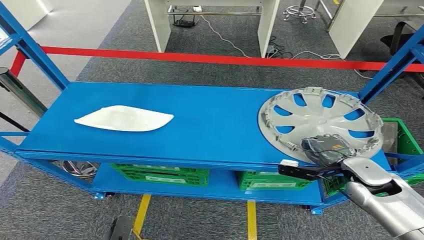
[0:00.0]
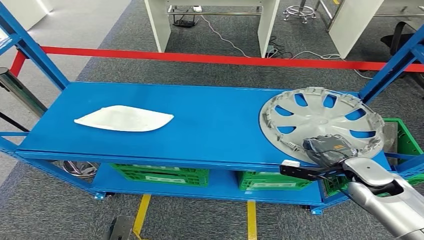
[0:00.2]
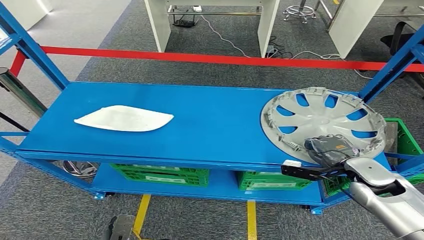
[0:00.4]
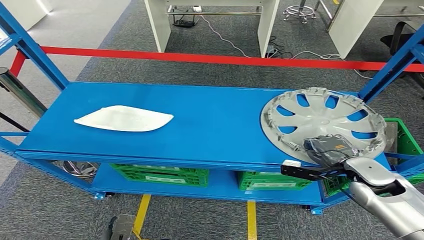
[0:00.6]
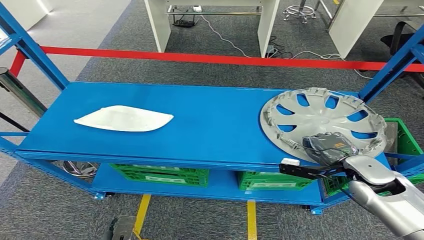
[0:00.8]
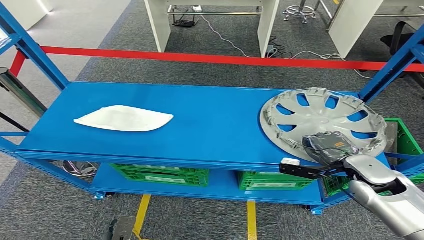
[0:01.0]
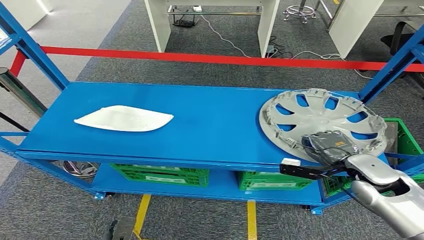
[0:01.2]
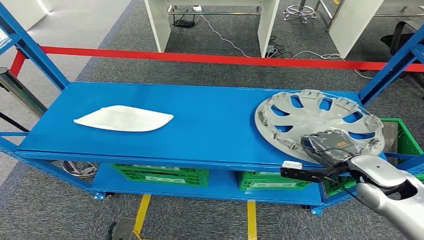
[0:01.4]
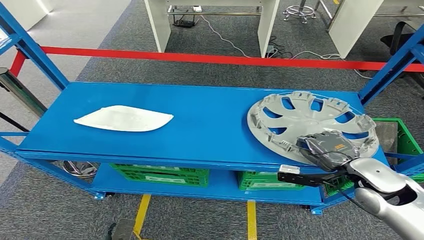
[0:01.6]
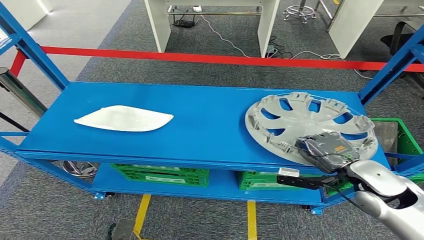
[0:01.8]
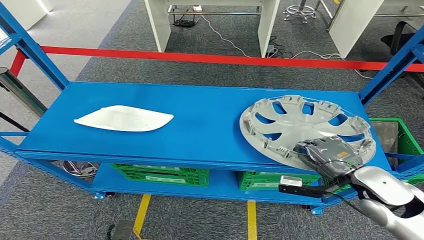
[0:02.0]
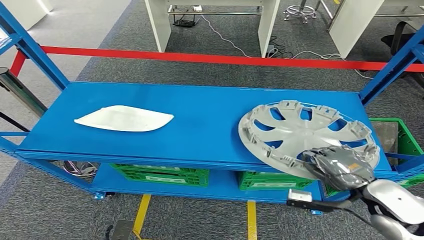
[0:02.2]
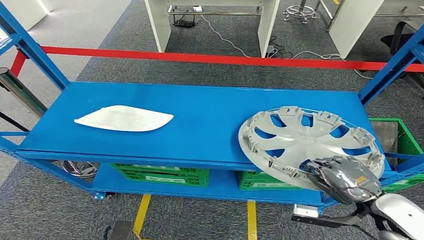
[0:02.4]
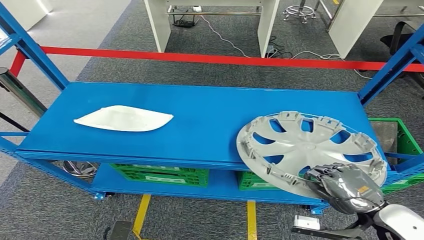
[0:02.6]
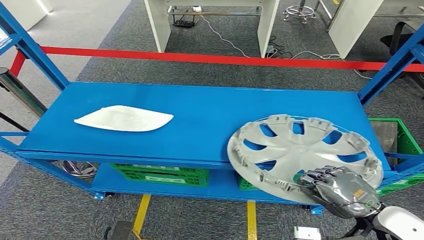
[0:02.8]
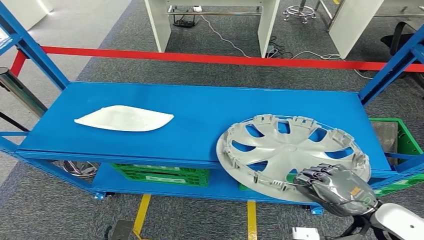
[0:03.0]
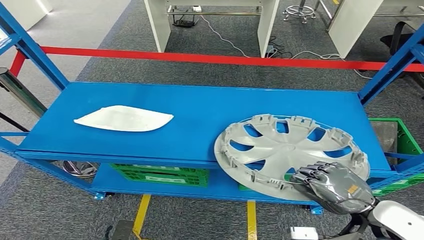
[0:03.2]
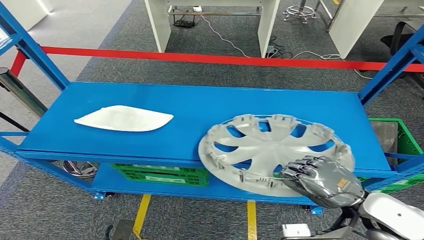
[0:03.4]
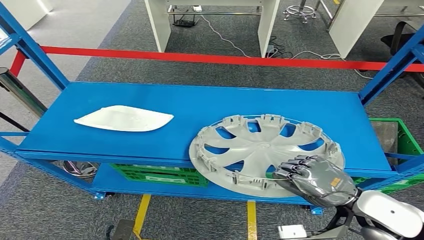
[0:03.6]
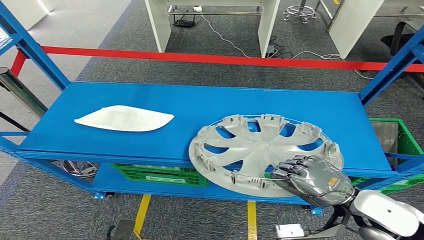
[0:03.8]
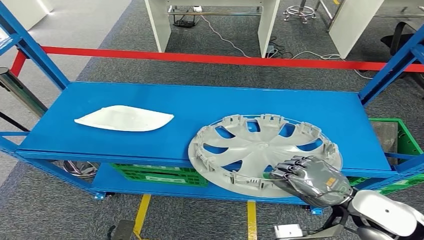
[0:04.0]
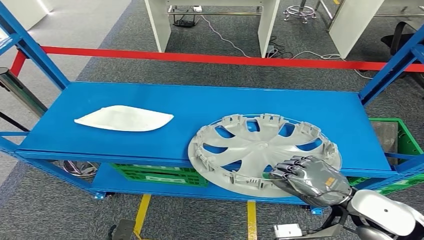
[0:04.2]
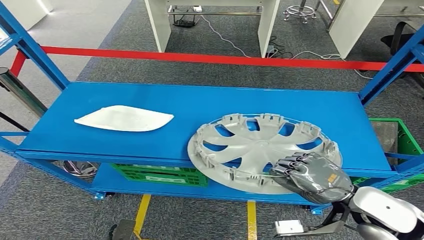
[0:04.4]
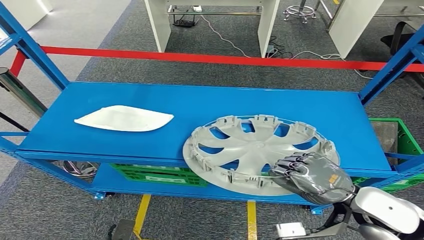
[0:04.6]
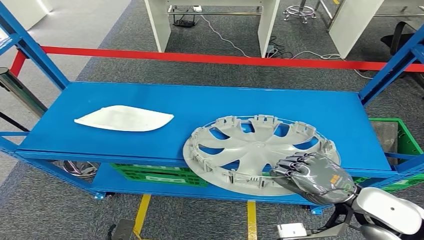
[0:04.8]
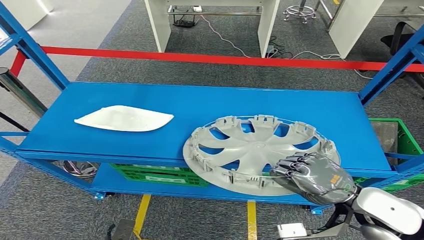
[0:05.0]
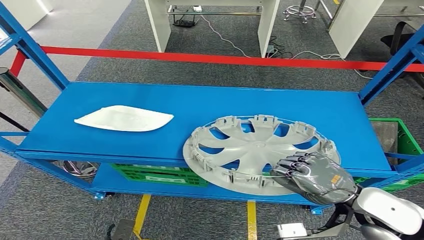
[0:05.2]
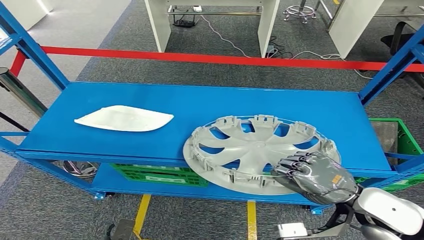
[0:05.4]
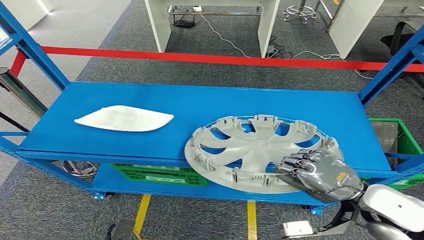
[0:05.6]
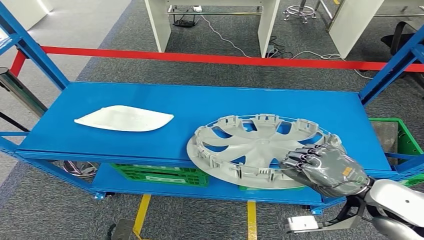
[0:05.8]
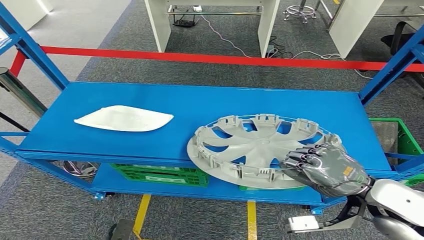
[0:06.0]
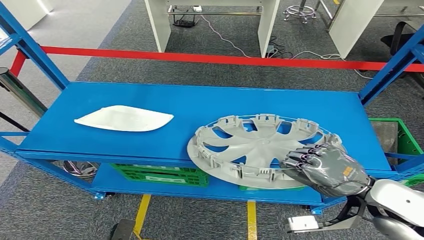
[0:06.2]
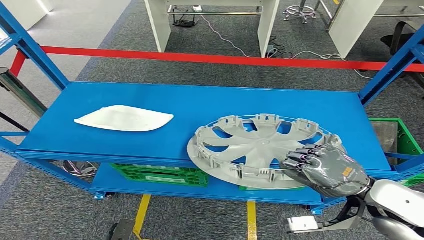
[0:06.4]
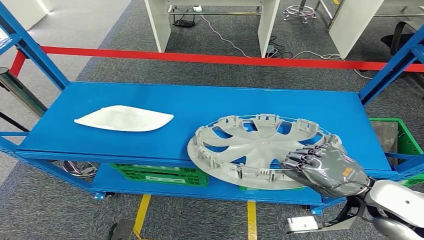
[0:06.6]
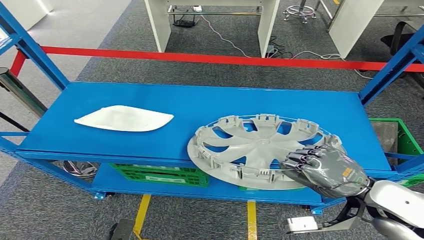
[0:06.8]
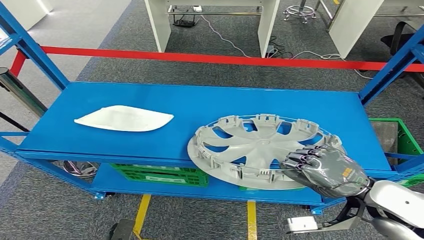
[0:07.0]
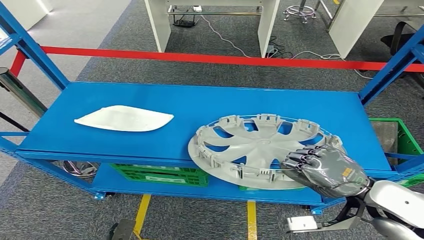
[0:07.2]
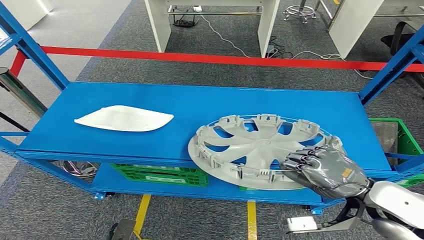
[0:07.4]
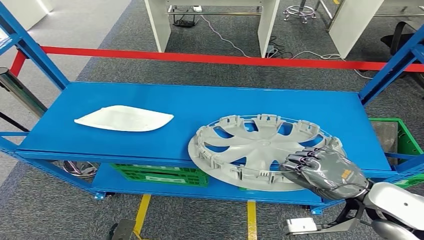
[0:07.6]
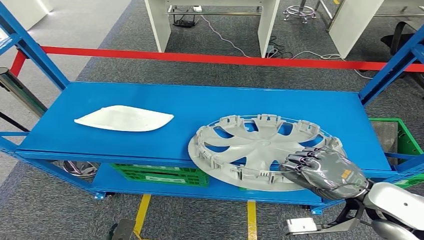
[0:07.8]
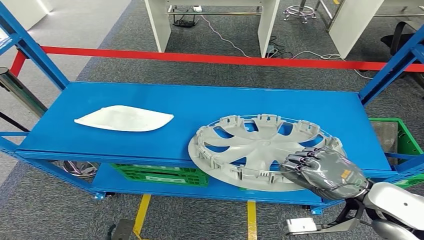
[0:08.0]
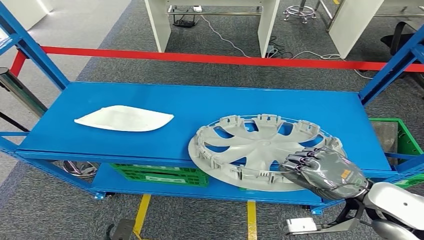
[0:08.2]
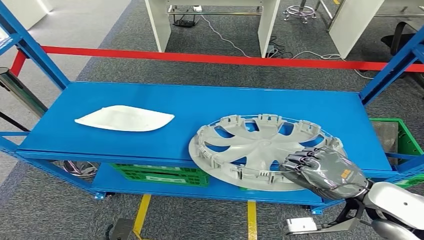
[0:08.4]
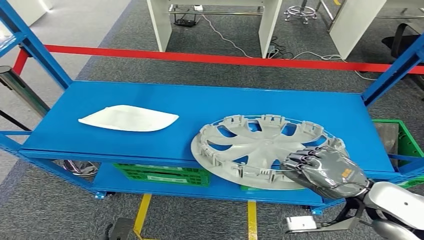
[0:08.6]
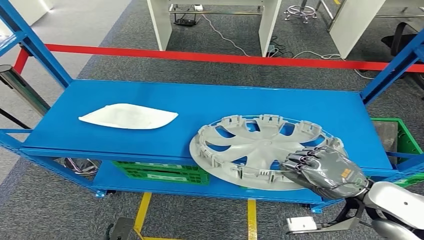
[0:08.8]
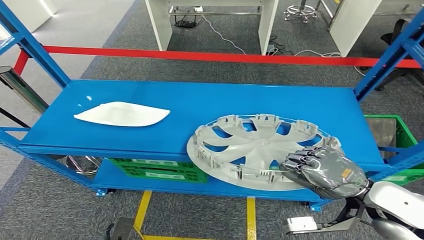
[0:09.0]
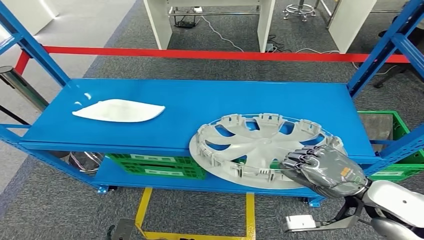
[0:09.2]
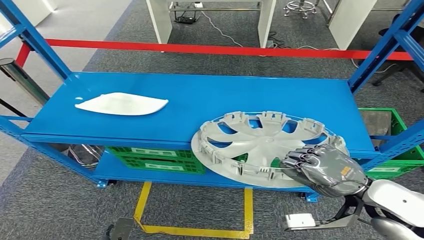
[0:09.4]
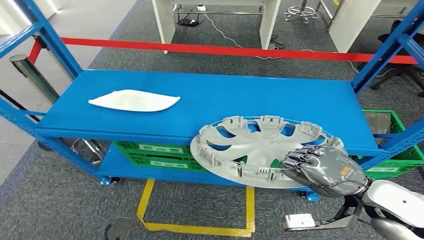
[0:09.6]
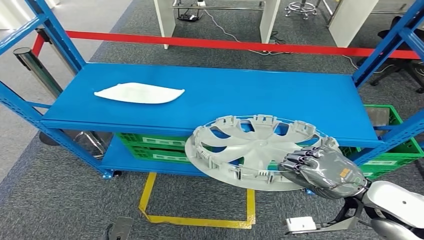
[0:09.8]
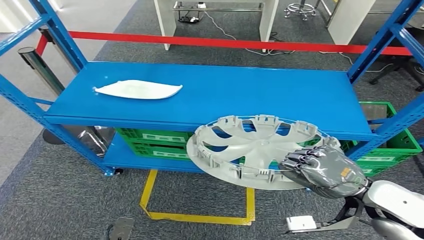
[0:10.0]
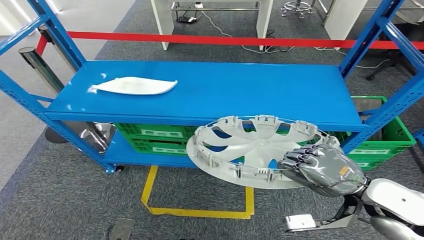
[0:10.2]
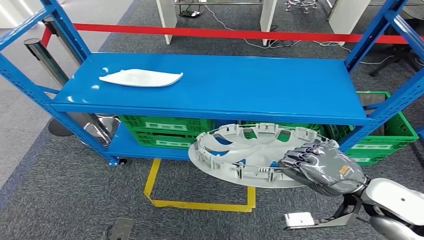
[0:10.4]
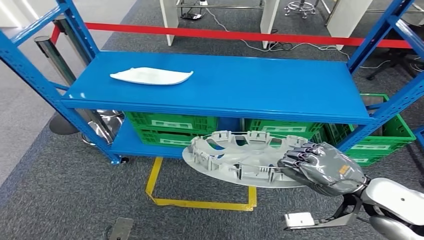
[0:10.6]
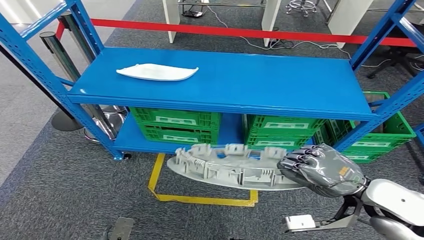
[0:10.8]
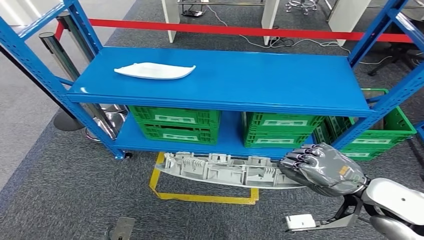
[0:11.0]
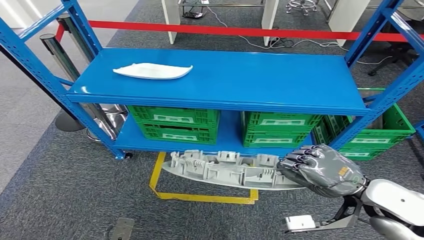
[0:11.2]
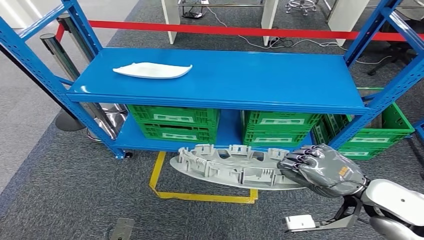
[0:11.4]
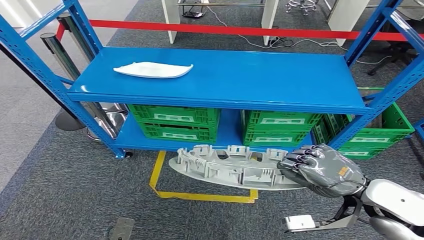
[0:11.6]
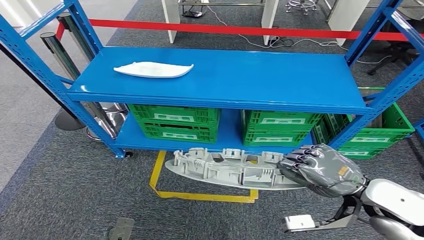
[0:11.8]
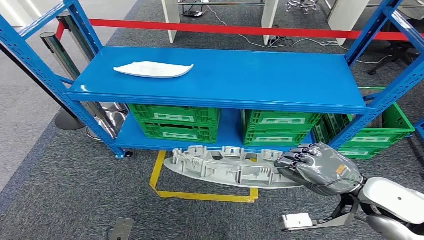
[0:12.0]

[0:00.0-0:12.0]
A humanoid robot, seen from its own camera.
0:01.6 to 0:03.0: The right hand heads backward, covering some 10 cm.
0:03.0 to 0:04.4: The hands make only small movements.
0:04.4 to 0:06.0: The hands make only small movements.
0:06.0 to 0:09.0: The two hands keep their place.

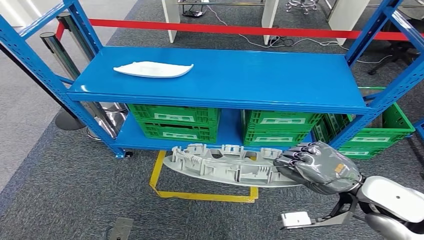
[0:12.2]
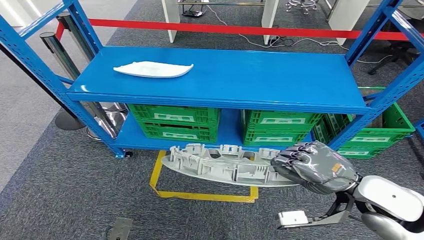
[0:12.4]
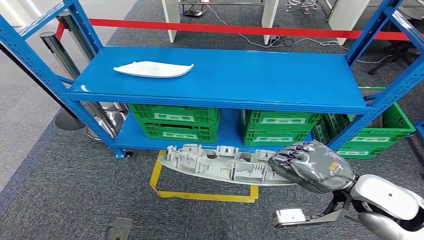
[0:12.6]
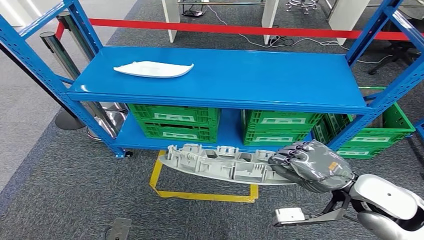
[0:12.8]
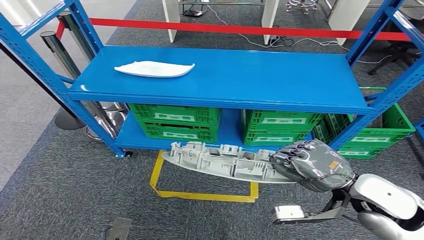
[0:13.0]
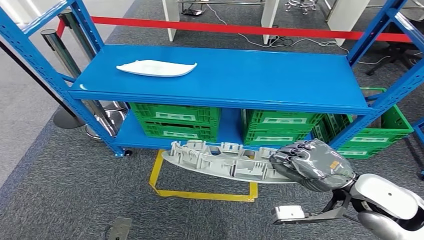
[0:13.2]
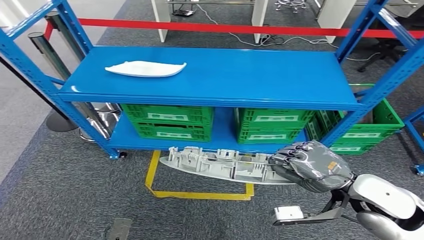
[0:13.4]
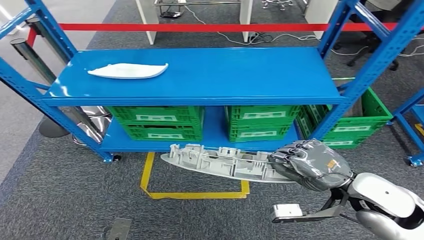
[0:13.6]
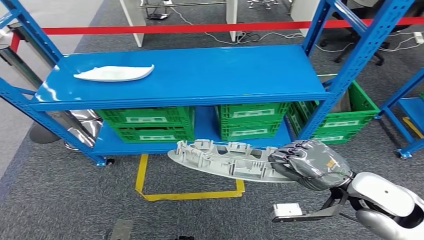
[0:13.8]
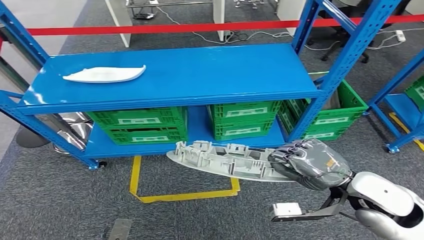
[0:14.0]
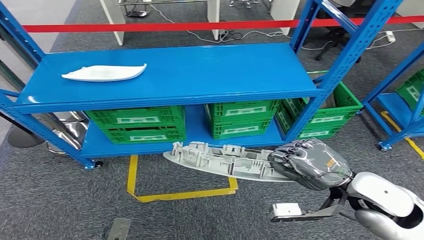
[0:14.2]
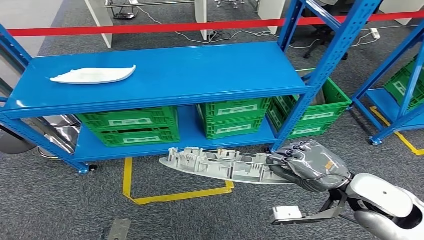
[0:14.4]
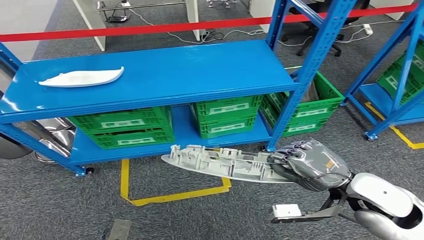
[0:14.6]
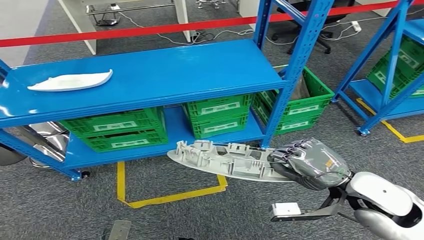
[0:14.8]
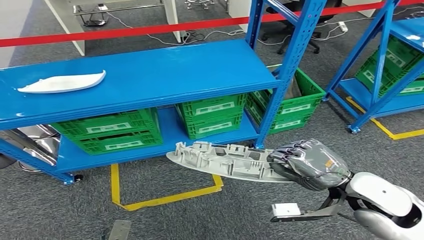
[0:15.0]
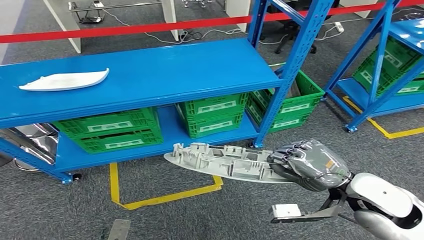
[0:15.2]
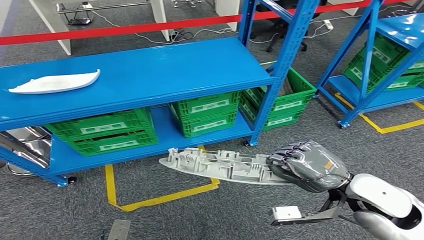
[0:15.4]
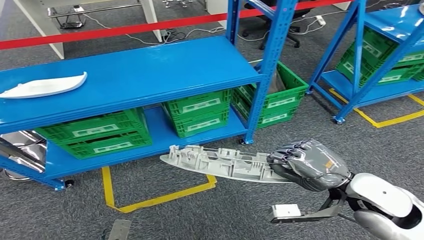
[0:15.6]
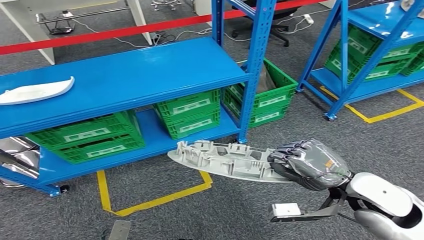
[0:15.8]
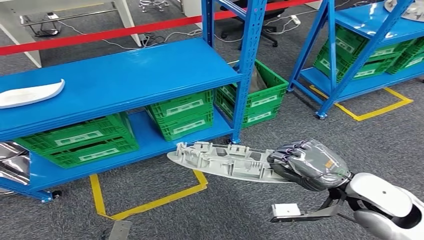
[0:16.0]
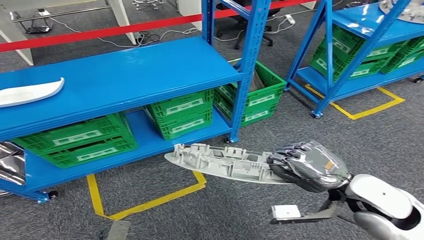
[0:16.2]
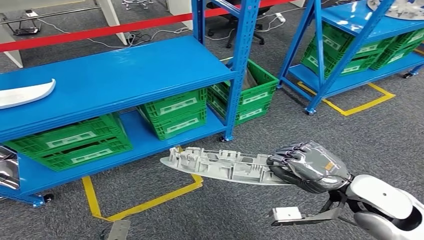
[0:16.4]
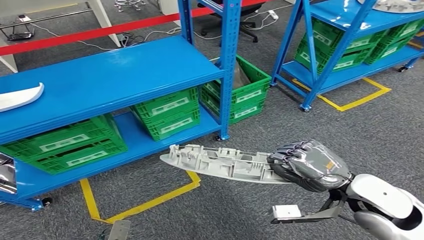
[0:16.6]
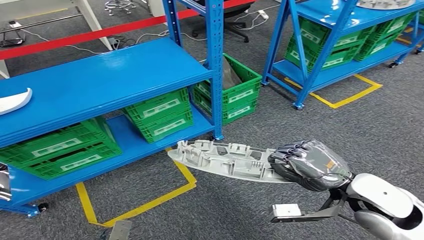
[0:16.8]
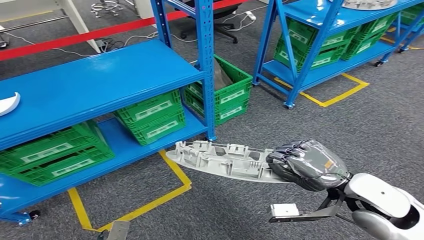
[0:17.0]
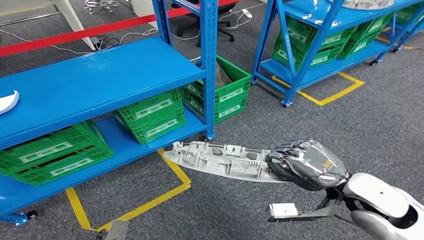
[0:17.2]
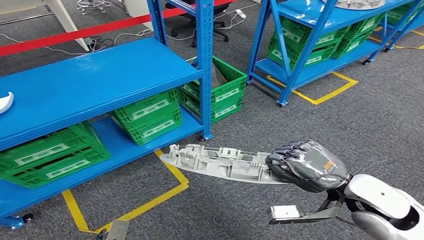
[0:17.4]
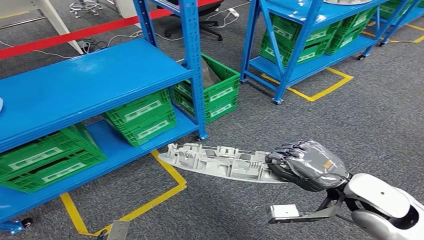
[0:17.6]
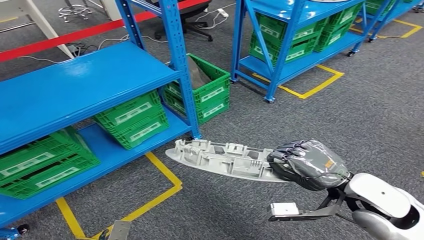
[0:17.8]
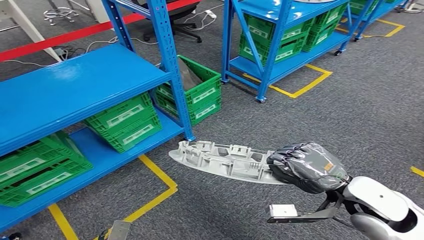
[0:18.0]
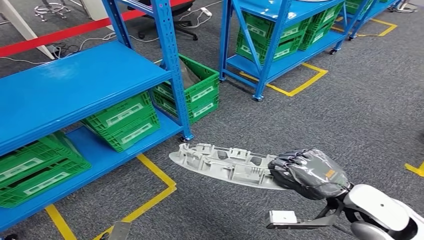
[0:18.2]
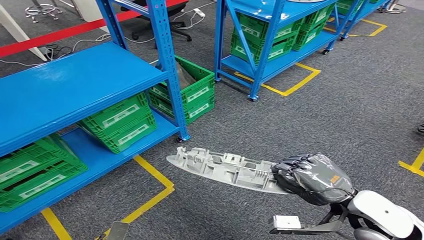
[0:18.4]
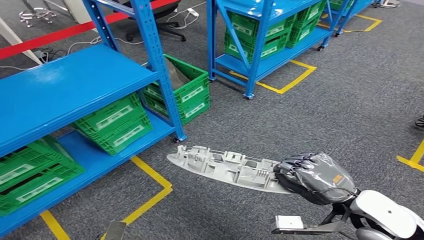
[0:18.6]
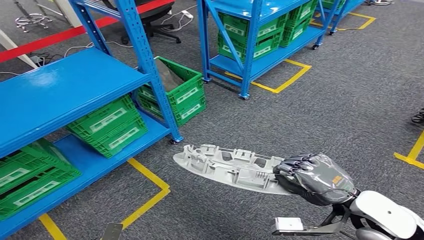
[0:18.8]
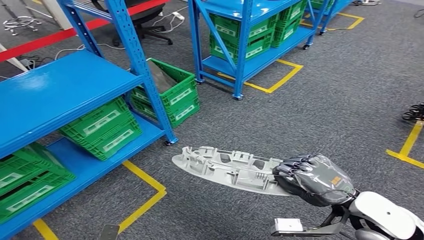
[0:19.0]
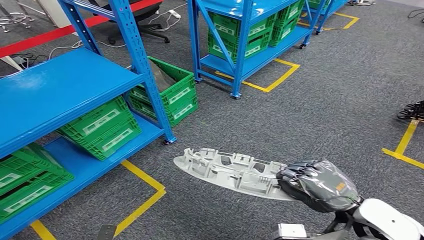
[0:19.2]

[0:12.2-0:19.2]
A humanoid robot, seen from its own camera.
Step, 0:12.2 to 0:14.4: Pick up the small component from the shelf.
